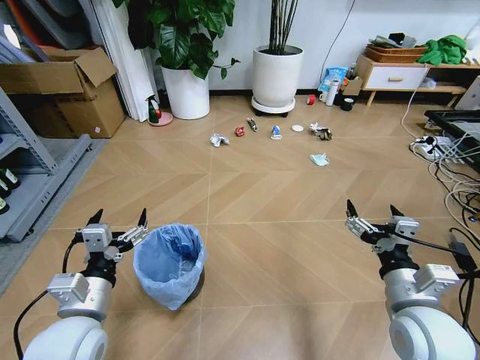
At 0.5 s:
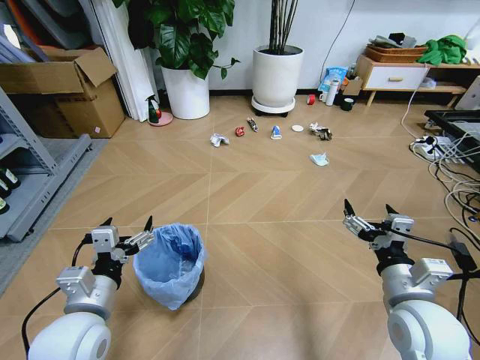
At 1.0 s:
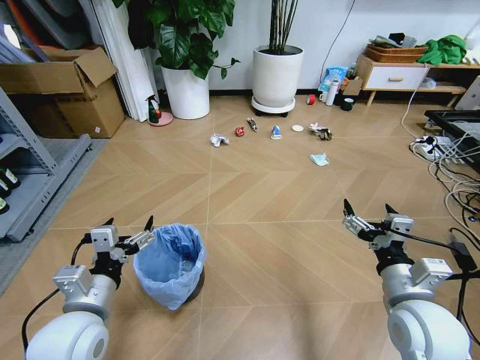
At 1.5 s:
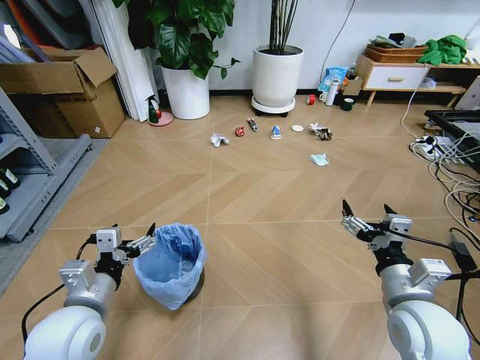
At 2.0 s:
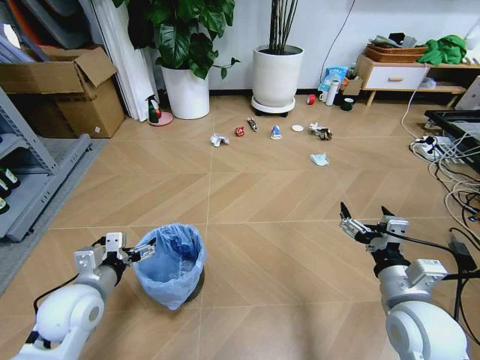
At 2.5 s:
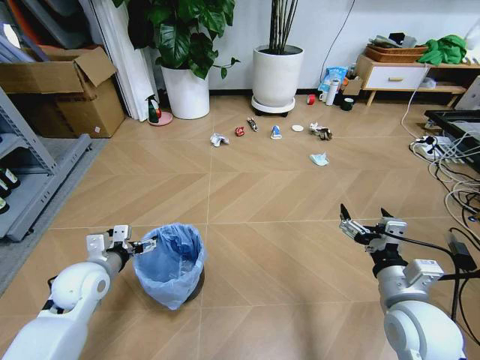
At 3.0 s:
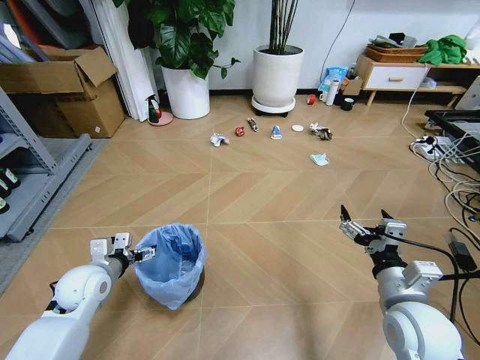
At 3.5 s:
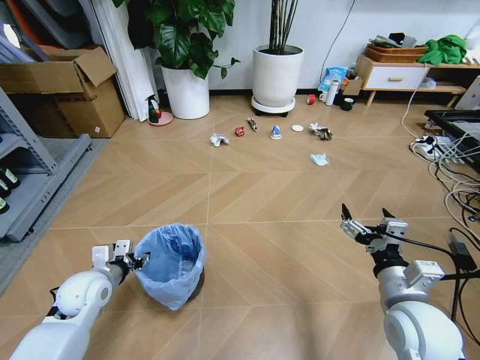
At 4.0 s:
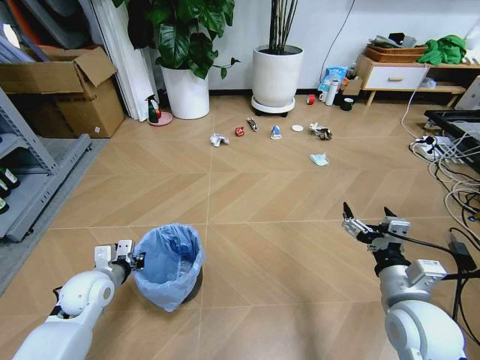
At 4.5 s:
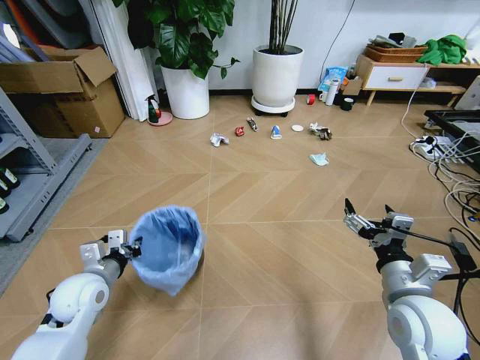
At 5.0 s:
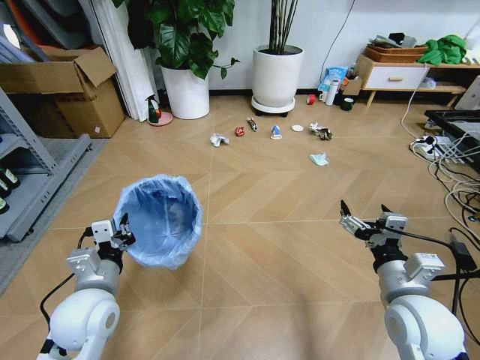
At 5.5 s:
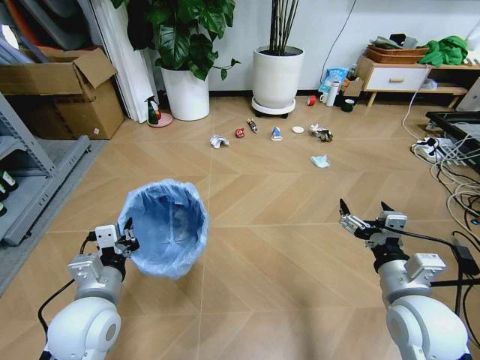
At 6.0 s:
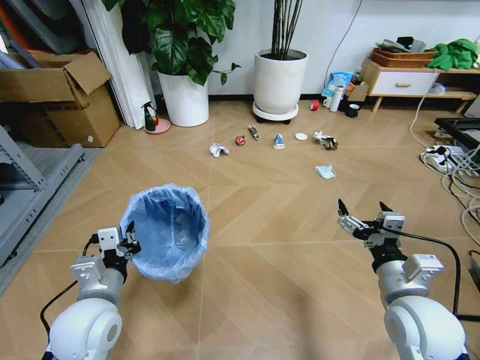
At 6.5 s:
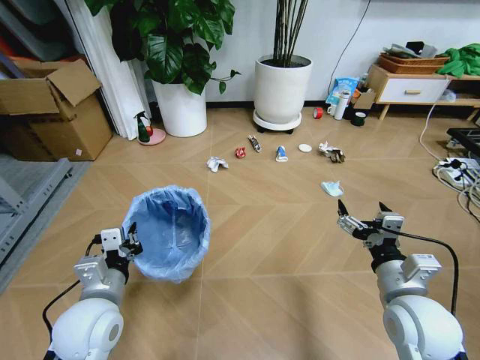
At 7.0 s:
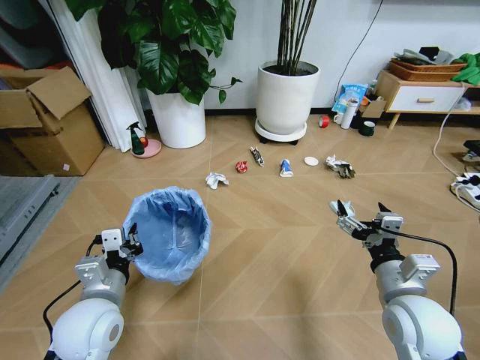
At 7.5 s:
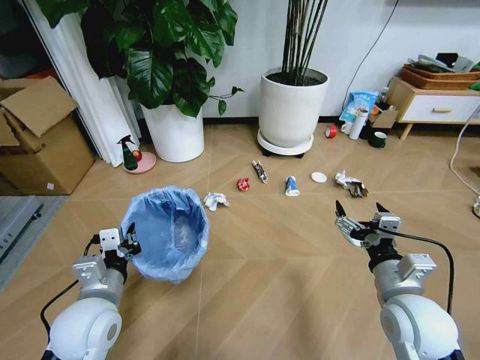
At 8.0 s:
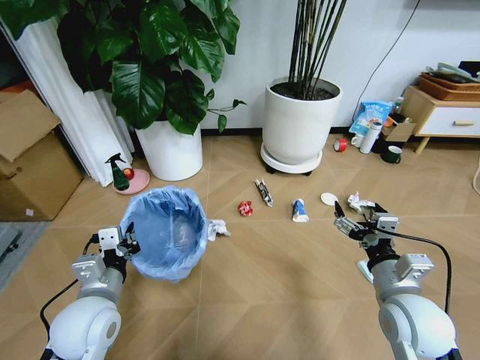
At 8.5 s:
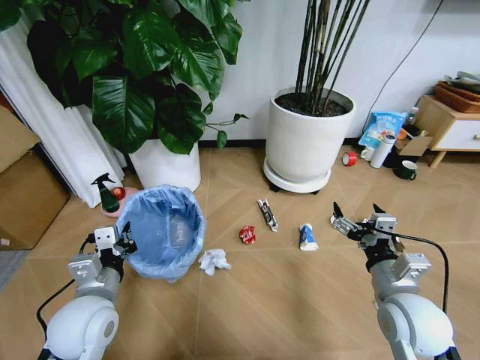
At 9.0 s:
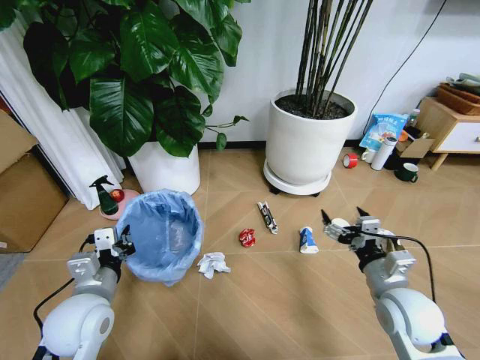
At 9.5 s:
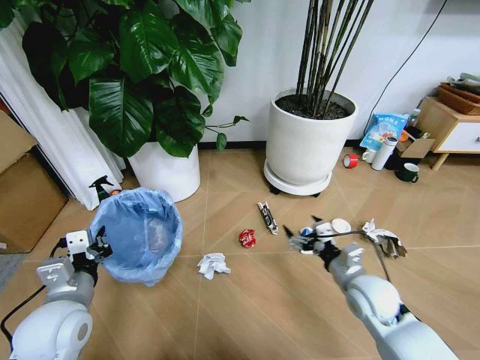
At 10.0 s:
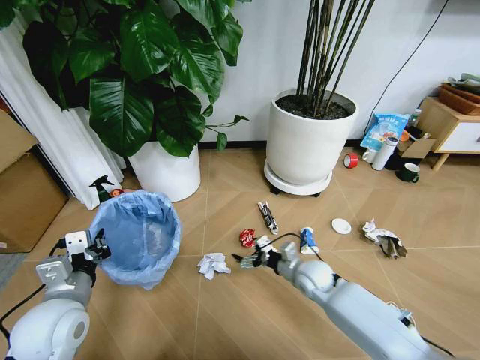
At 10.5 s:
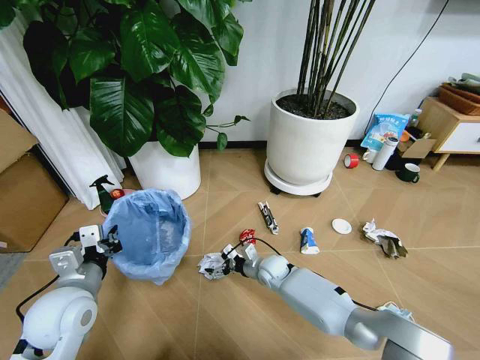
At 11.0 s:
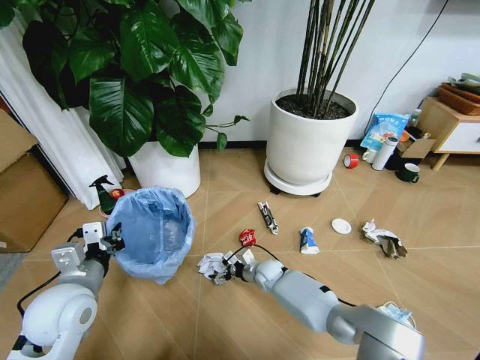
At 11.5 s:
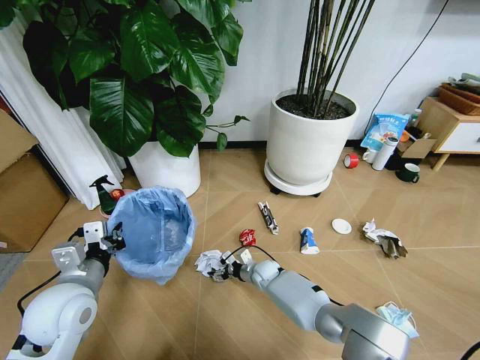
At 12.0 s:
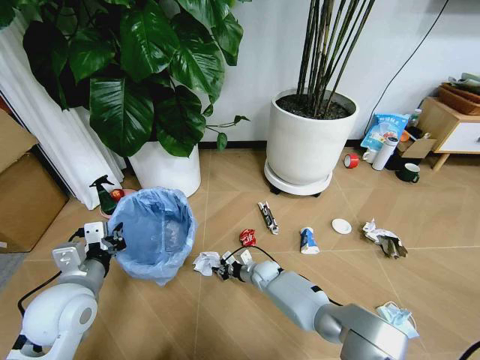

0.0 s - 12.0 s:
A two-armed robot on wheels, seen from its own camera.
Task of the whole recording: Pick up the trash bin and place the garbage on the floor into it.
2.0 s - 4.0 s: The left gripper shifts some 10 cm downward and forward, and closes.
4.0 s - 6.0 s: The left gripper is displaced backward, to the right and upward by some 15 cm.
8.0 s - 10.0 s: The left gripper changes place by about 5 cm. Meanwhile the right gripper shifts roughly 25 cm downward, forward and to the left.
10.0 s - 12.0 s: The right gripper shifts some 15 cm downward, to the left and forward, and closes up.

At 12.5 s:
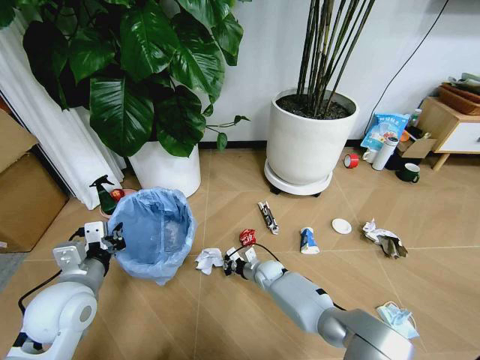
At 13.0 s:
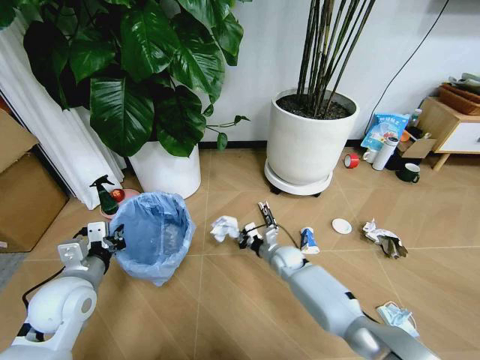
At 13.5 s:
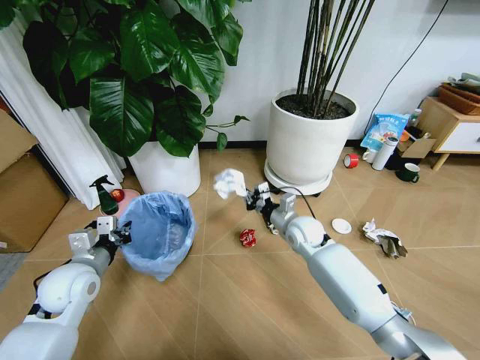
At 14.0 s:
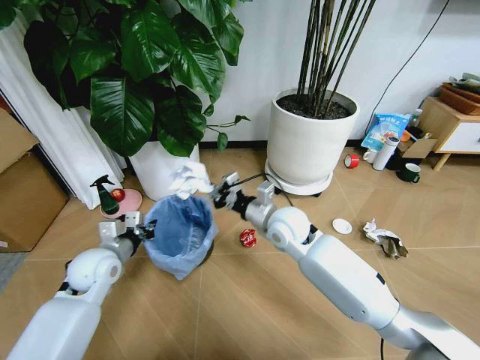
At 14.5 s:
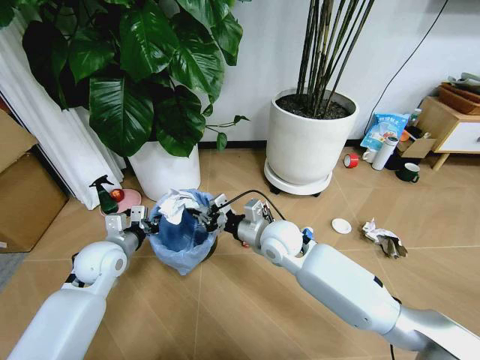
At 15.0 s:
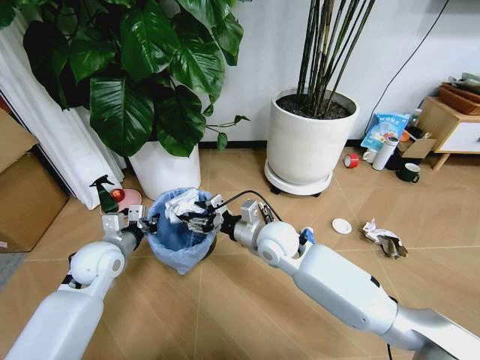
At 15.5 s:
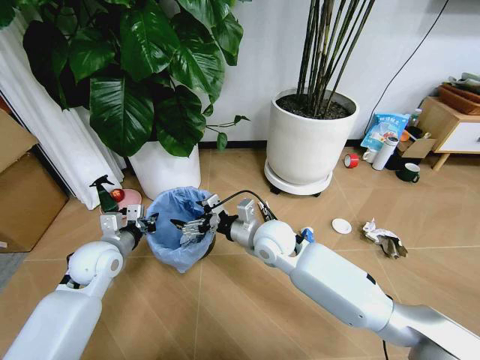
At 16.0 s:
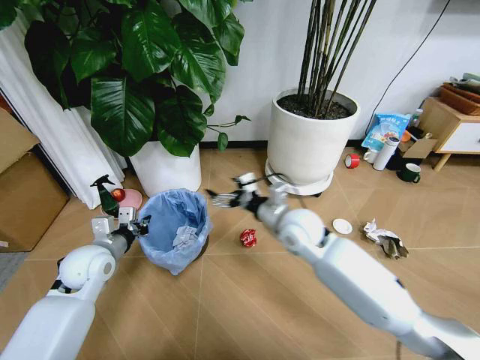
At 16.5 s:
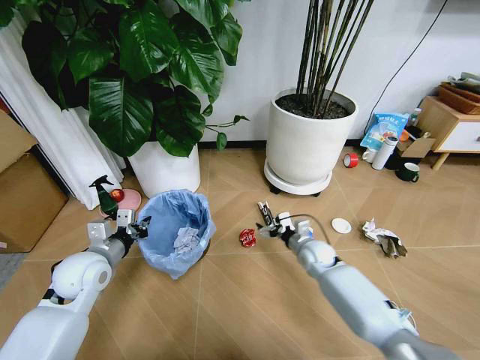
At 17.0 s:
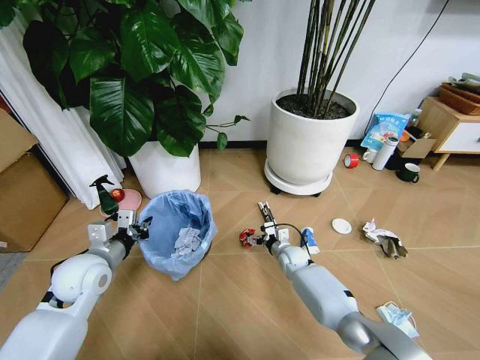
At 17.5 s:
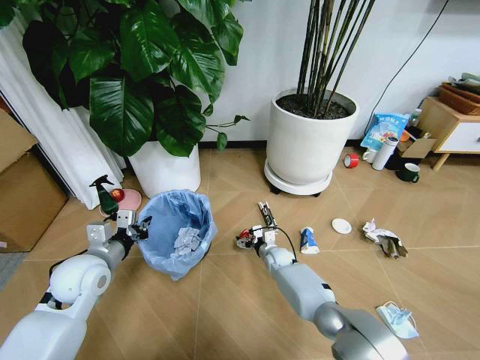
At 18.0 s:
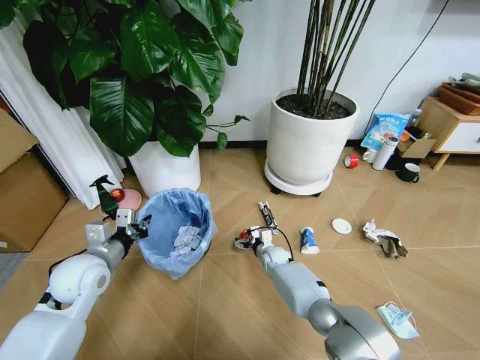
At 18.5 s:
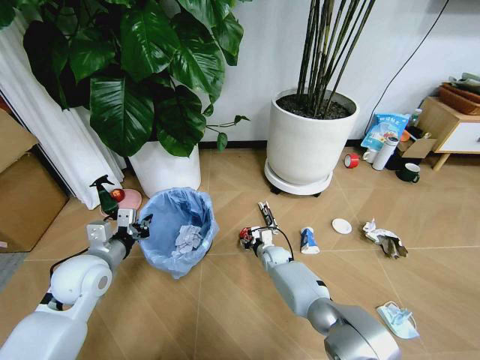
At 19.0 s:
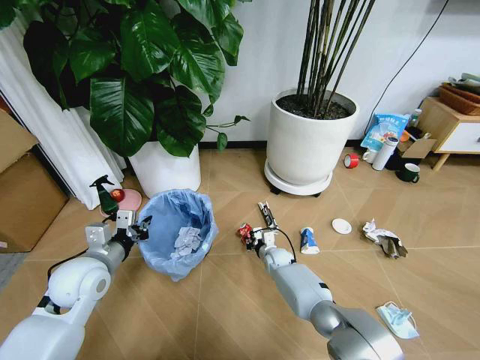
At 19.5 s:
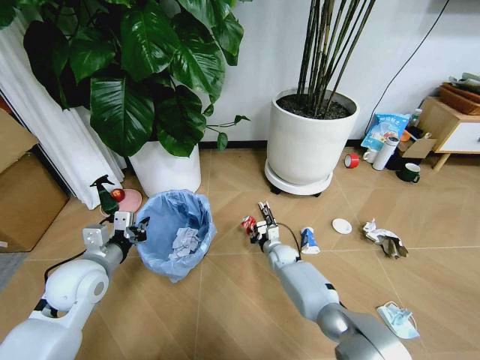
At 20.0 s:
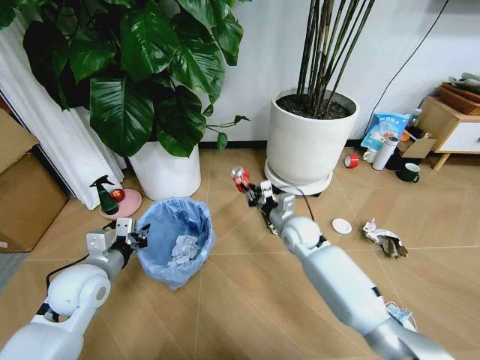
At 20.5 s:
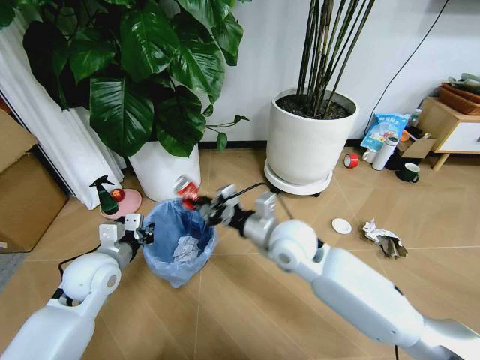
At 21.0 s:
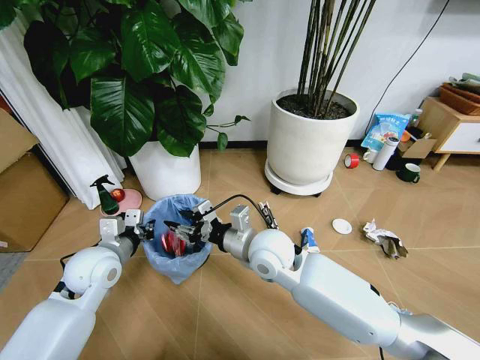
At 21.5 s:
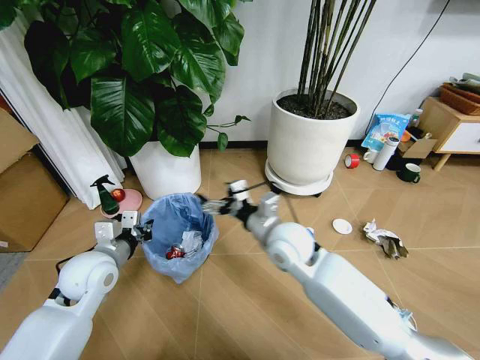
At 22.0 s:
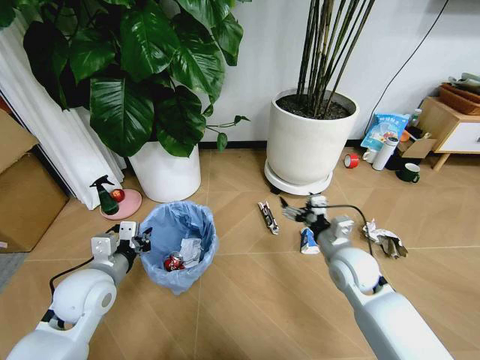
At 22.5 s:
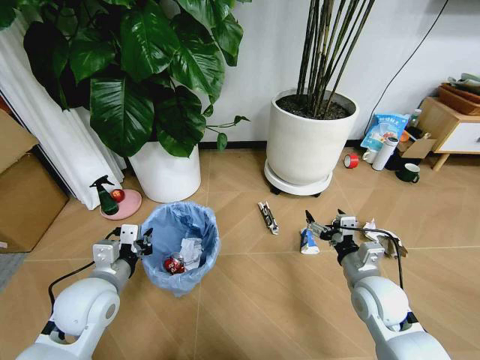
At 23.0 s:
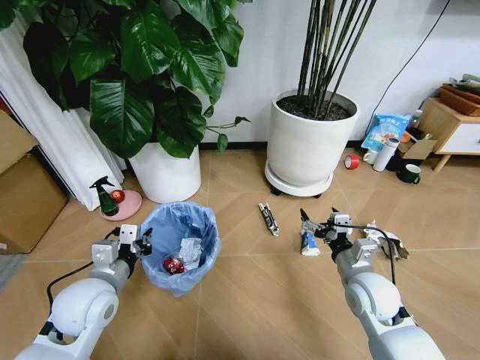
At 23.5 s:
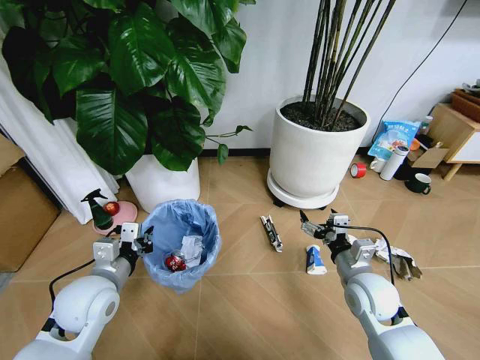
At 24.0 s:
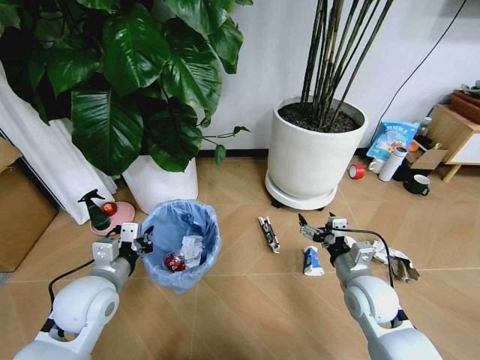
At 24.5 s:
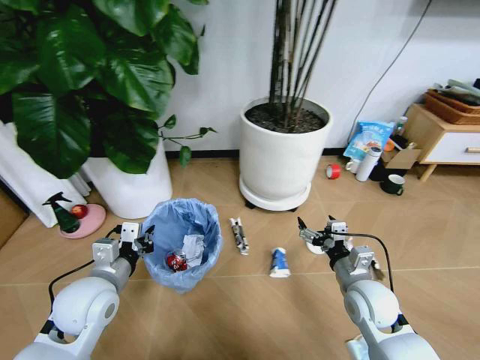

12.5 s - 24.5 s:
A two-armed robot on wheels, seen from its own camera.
Task of the whole recording: Pick up the trash bin and place the garbage on the floor into it.
12.5 s - 14.5 s: The left gripper heads forward, covering roughly 10 cm. Meanwhile the right gripper travels upward by about 25 cm.
14.5 s - 16.5 s: The right gripper heads downward and to the right, covering some 20 cm, and opens its fingers.
16.5 s - 18.5 s: The right gripper moves to the left and downward, about 15 cm, and closes up.
18.5 s - 20.5 s: The right gripper travels upward and backward by roughly 30 cm.
20.5 s - 22.5 s: The right gripper goes some 20 cm to the right, downward and backward, and opens. The left gripper is displaced backward by roughly 5 cm.

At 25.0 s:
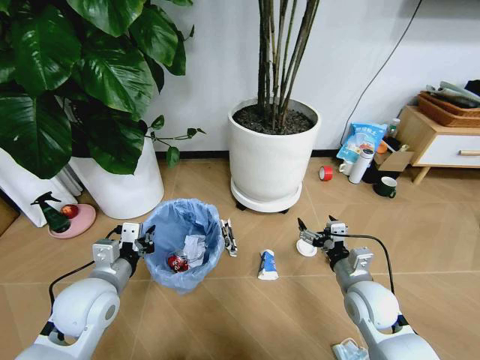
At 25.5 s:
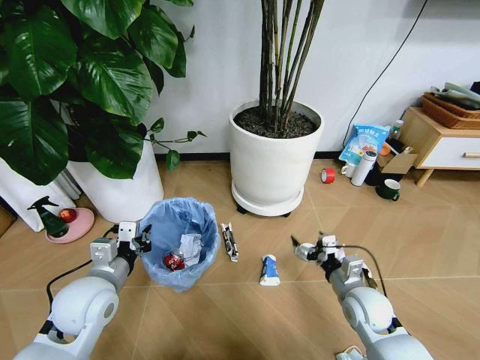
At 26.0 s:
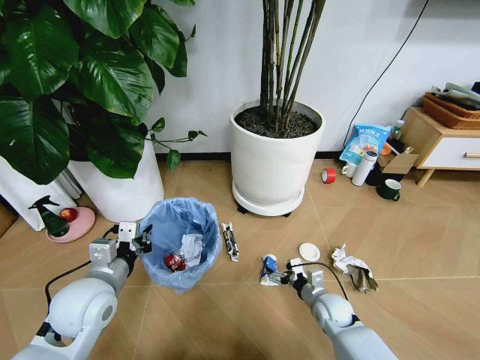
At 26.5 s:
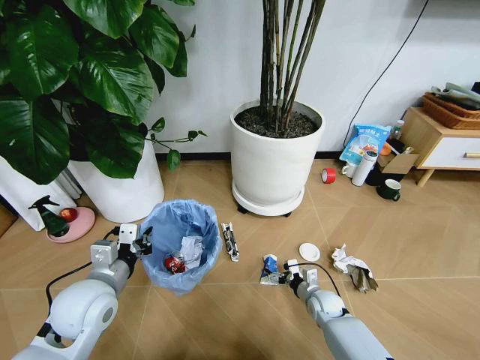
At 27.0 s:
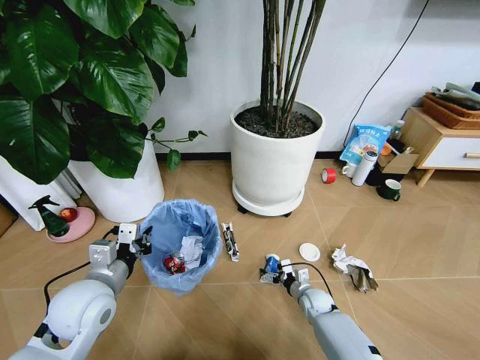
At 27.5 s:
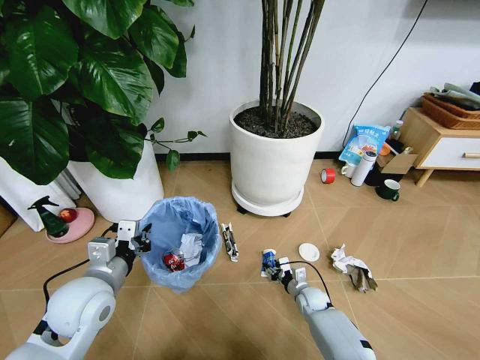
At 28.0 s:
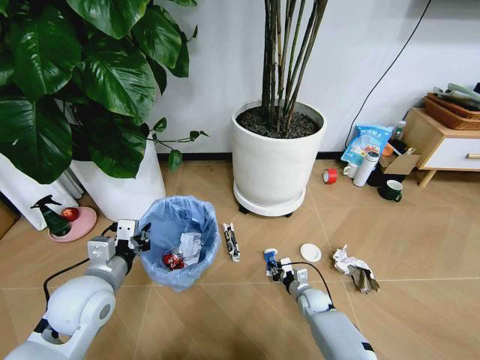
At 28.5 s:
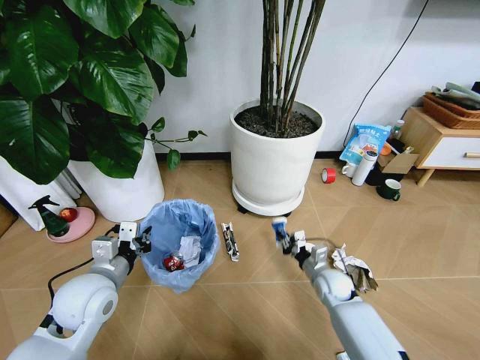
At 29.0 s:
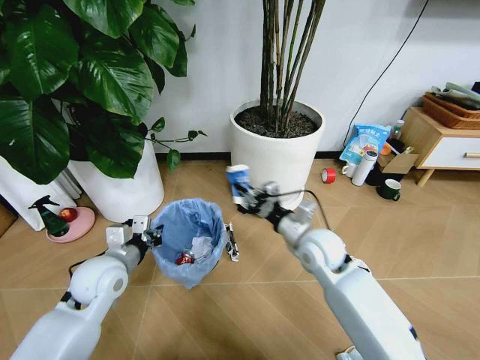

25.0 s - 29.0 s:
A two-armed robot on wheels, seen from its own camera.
Task of the whole recording: Pick up the trash bin and place the garbage on the floor into it.
25.0 s - 27.0 s: The right gripper goes some 25 cm downward.
27.0 s - 29.0 s: The right gripper moves upward, approximately 30 cm, and closes up, while the left gripper is displaced forward by roughly 5 cm.
